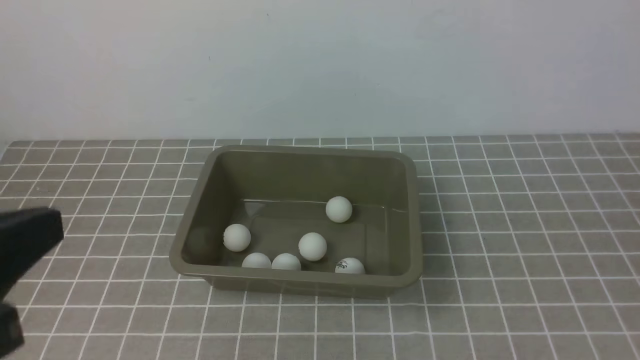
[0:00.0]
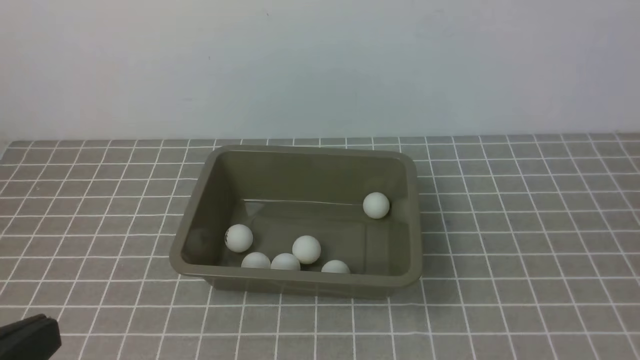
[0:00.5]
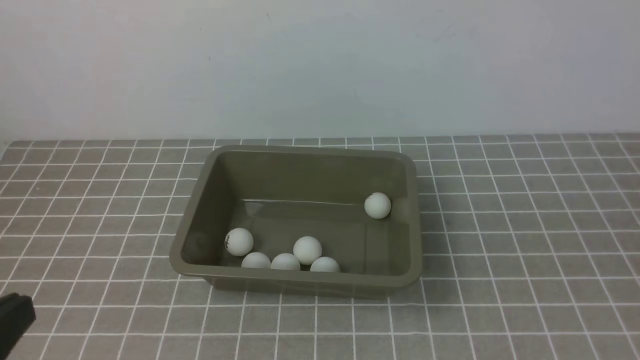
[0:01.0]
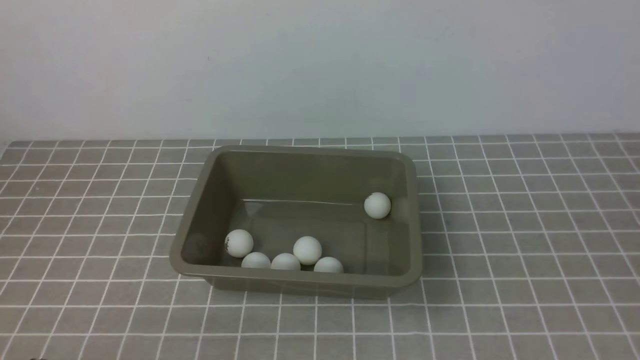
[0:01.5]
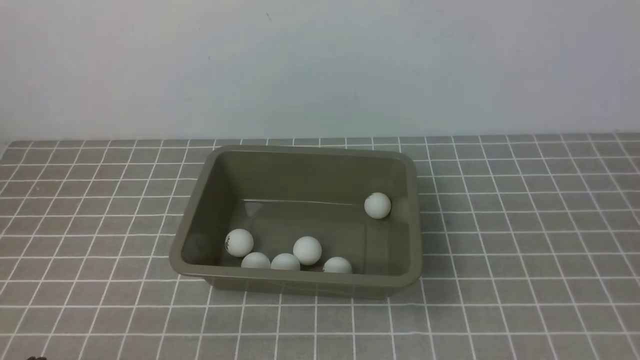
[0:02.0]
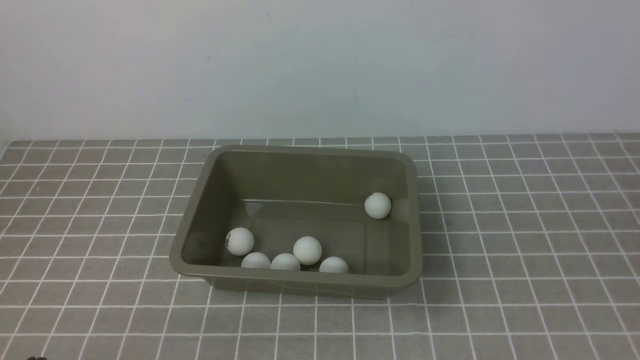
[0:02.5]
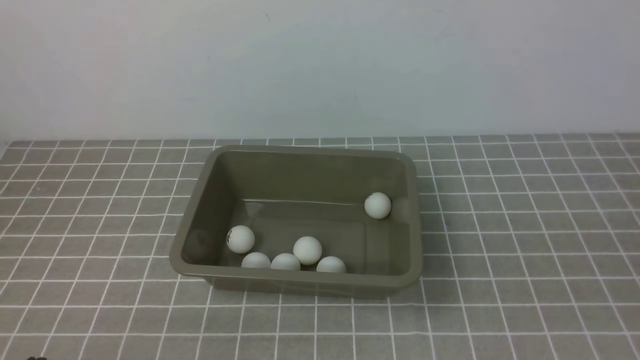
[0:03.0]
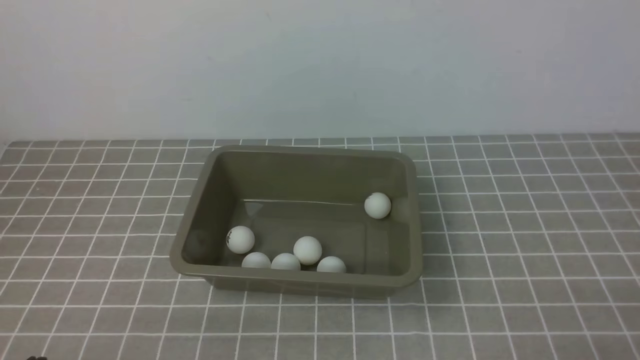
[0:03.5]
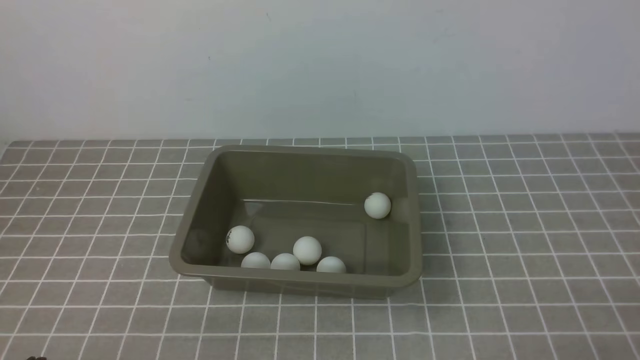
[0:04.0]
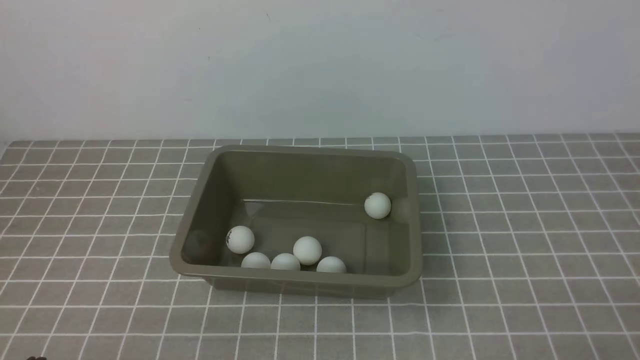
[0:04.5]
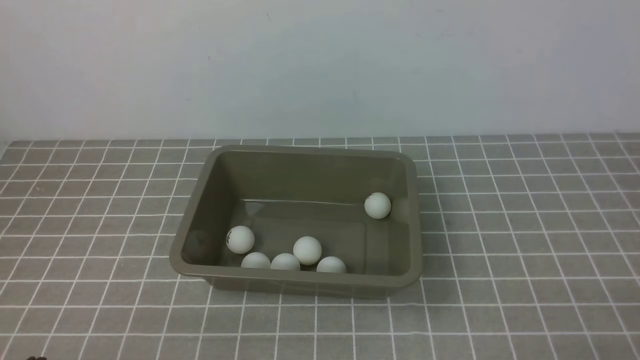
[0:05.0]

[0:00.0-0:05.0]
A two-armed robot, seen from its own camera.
0:00.0 to 0:02.5: The left gripper moves downward, some 20 cm.

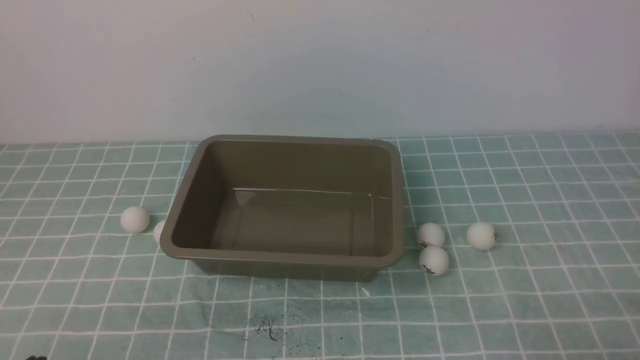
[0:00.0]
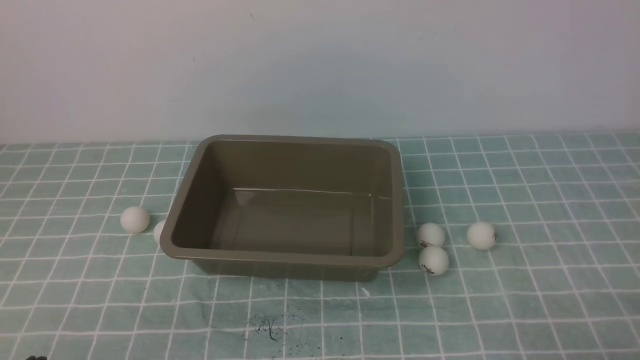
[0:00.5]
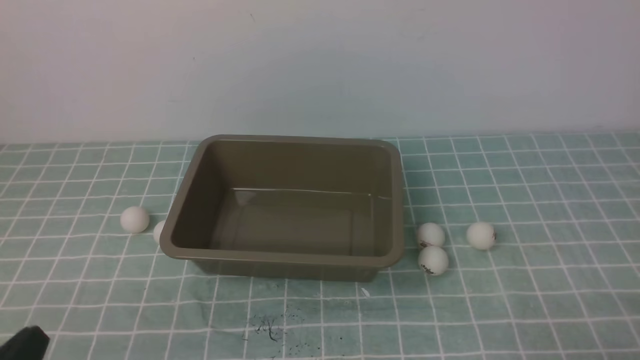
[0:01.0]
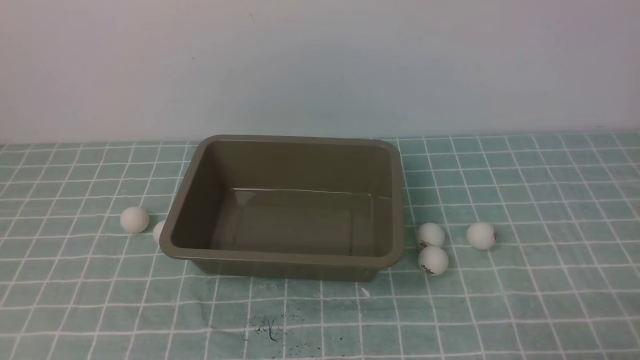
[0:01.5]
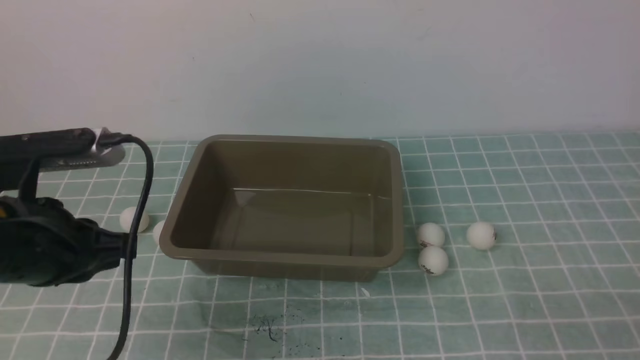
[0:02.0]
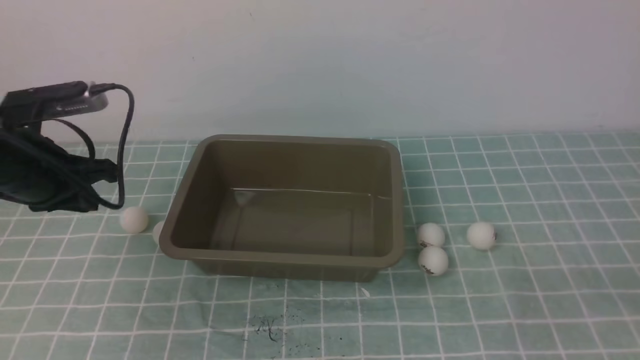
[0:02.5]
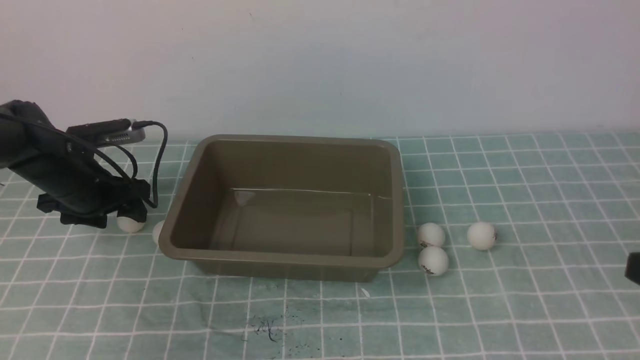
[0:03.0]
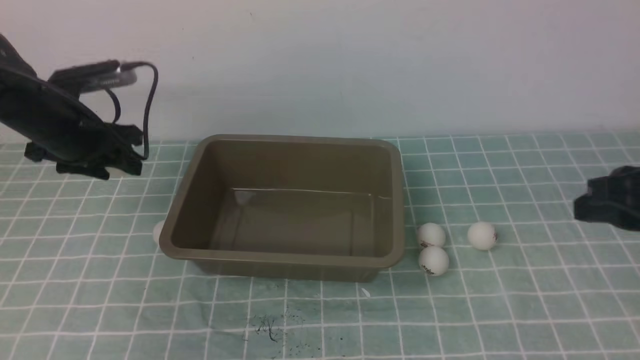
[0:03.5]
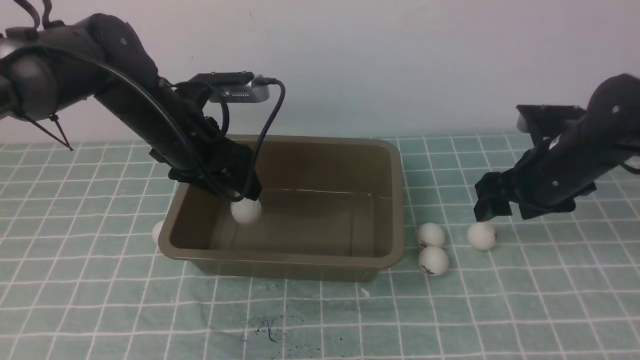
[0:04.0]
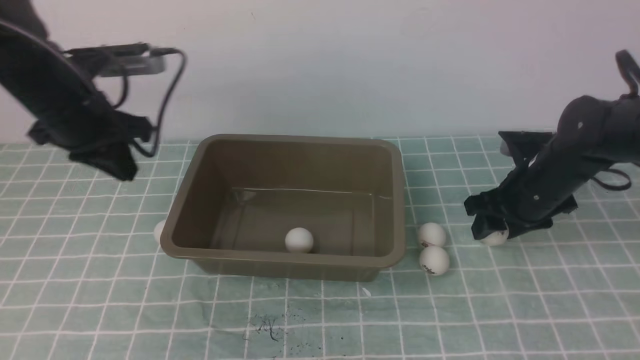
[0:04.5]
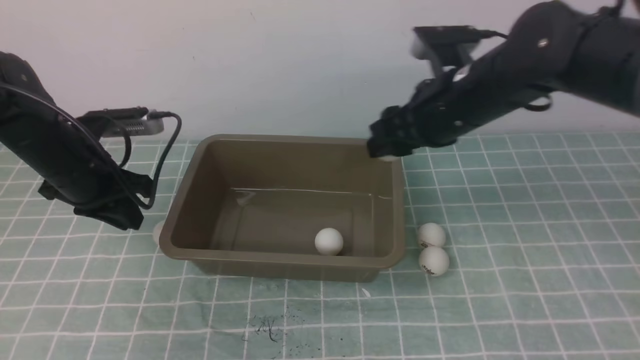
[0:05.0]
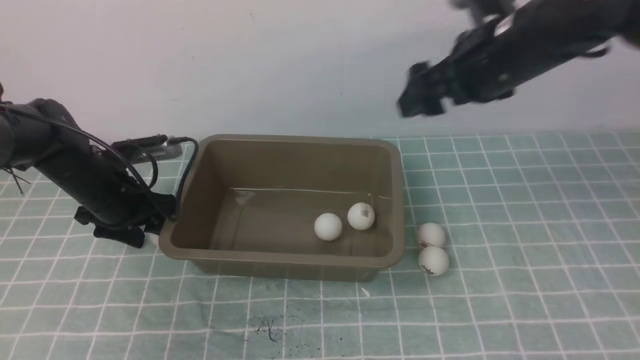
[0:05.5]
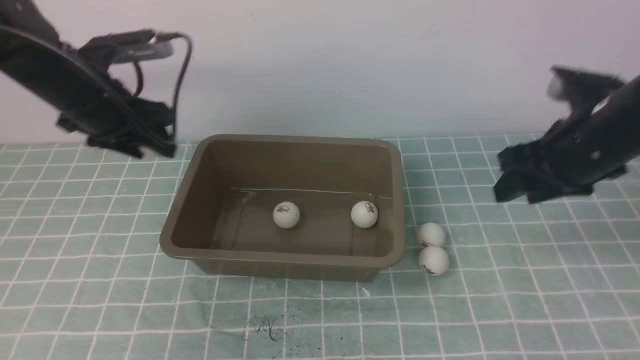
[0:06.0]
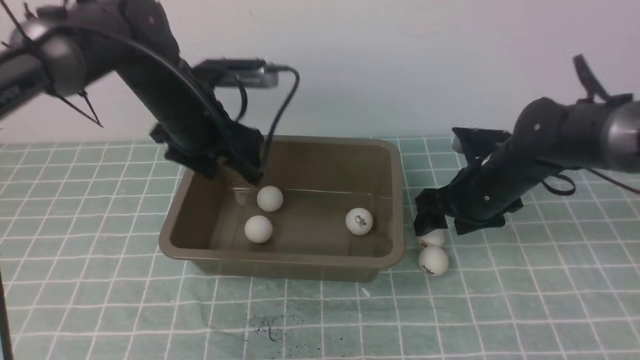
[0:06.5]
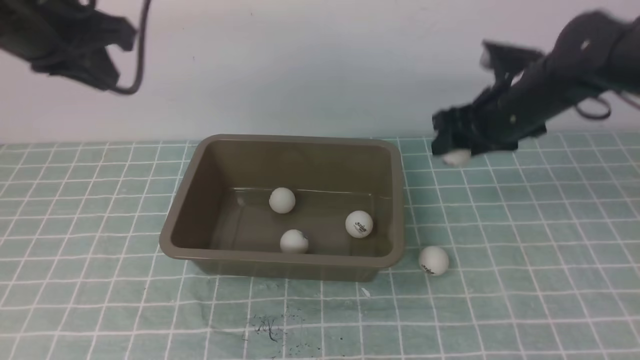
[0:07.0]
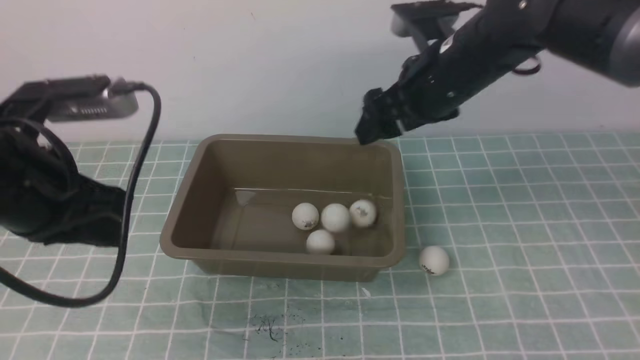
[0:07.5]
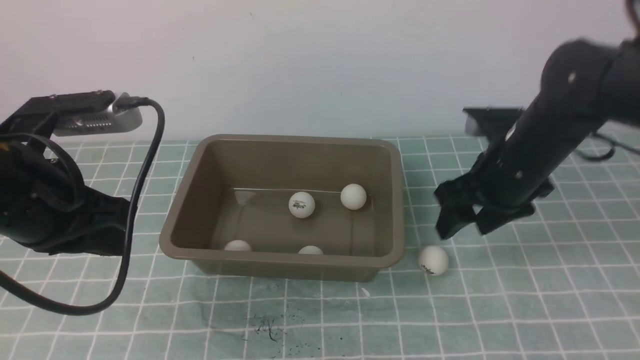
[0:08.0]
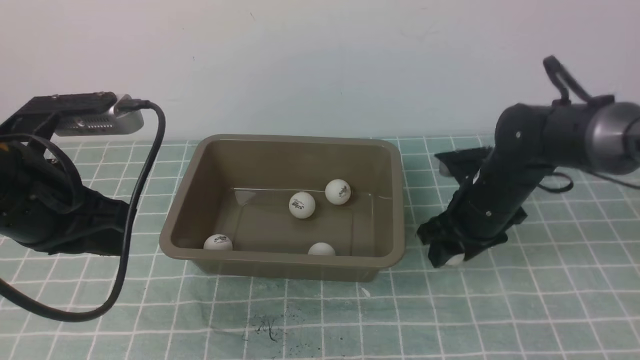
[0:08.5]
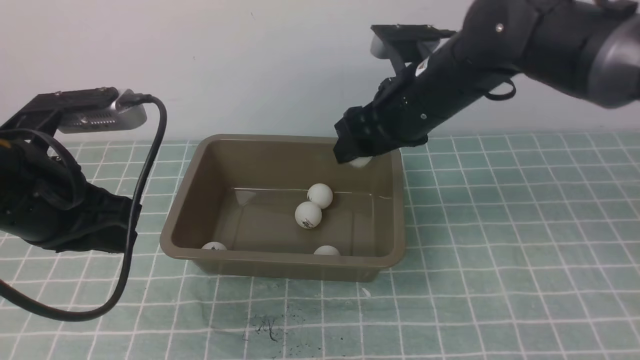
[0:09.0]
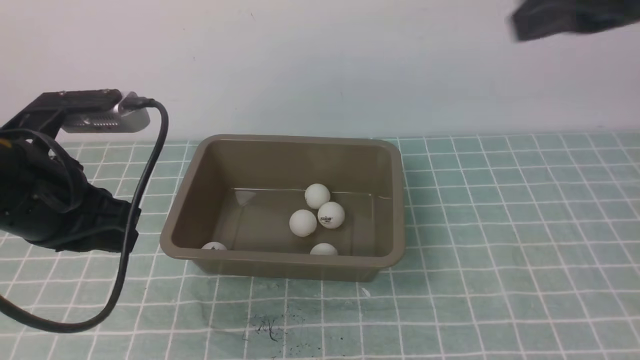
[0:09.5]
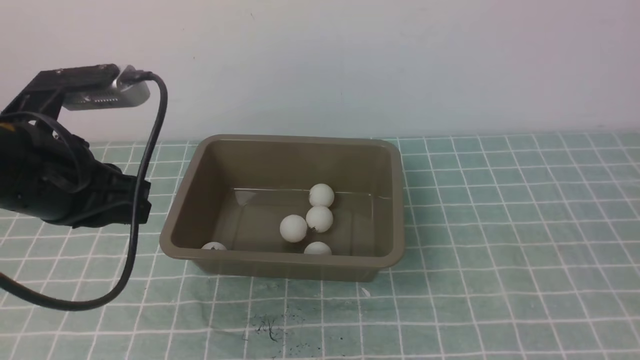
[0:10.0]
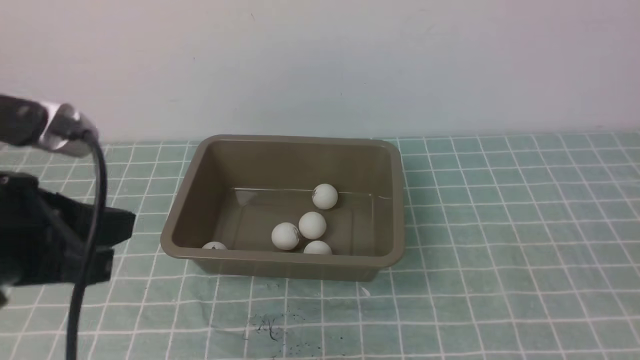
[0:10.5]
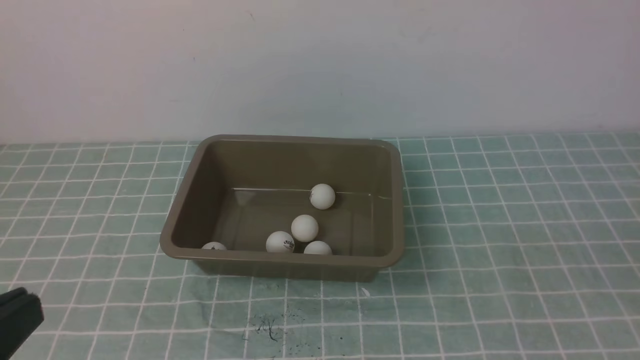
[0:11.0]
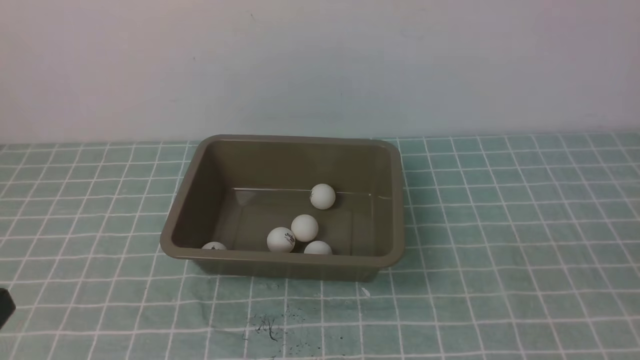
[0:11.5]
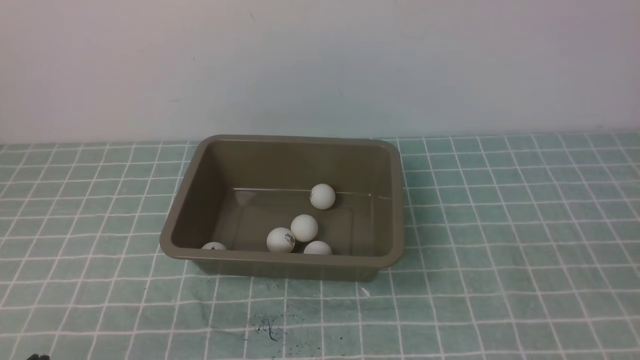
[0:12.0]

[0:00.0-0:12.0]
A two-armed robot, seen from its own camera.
Step, 0:00.0 to 0:03.0: use the left arm to clamp the table tennis ball closest to it.
Step, 0:04.0 to 0:05.0: use the right arm to clamp the table tennis ball closest to it.
Step, 0:08.0 to 0:08.5: use the right arm to clamp the table tennis ball closest to it.
0:00.0 to 0:02.0: The left gripper is displaced forward and upward by some 20 cm.
0:02.0 to 0:04.0: The left gripper moves forward, some 20 cm, and opens up, while the right gripper travels forward by roughly 30 cm, and opens.
0:04.0 to 0:06.0: The right gripper moves upward, approximately 5 cm; the left gripper goes roughly 5 cm to the left, reaches roughly 10 cm downward, then returns, and closes, then opens again.
0:06.0 to 0:08.0: The right gripper swings up and down, roughly 15 cm each way, with 2 reversals. Meanwhile the left gripper travels backward by roughly 15 cm, and closes up.
0:08.0 to 0:10.0: The right gripper is displaced backward and upward by some 35 cm, and closes up.
0:10.0 to 0:12.0: The left gripper travels backward and downward by roughly 25 cm, while the right gripper is displaced downward by roughly 5 cm.

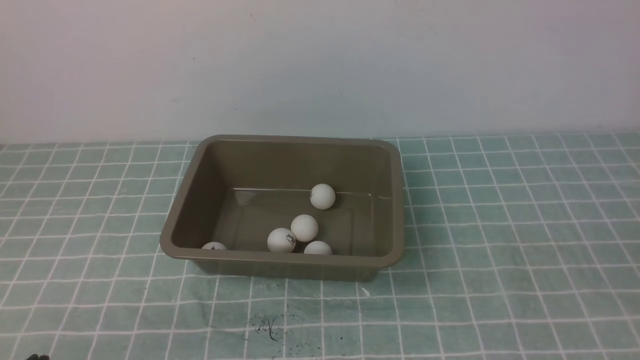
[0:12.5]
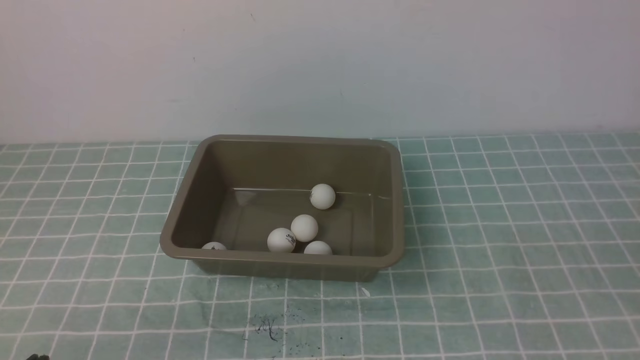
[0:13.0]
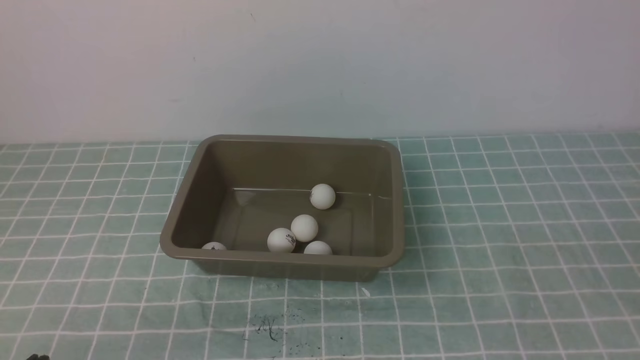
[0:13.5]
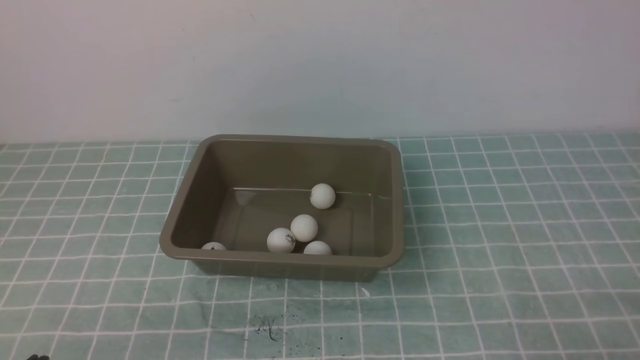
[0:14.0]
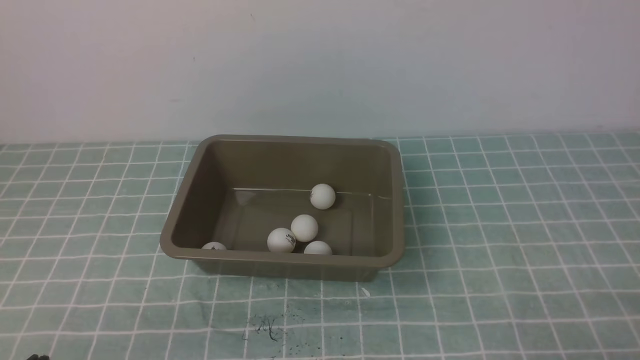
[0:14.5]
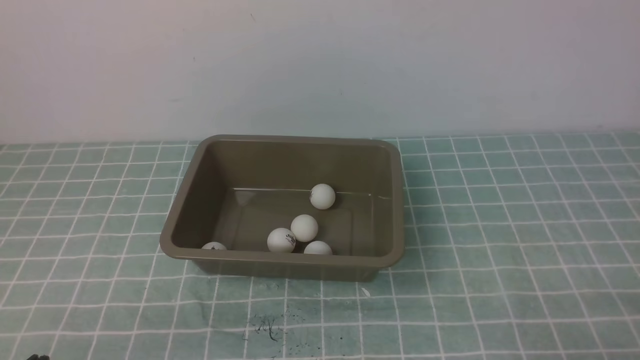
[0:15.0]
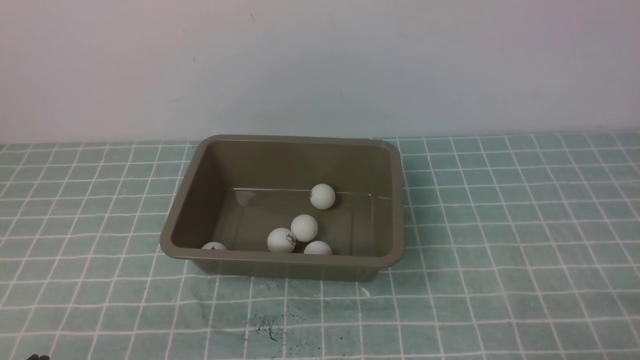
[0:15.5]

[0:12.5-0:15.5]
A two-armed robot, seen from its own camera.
0:14.0 to 0:15.5: Both grippers stay about where they are.
